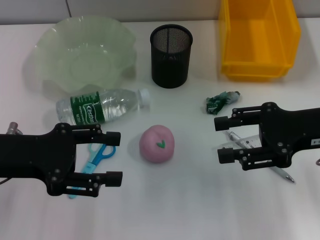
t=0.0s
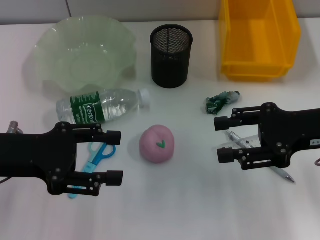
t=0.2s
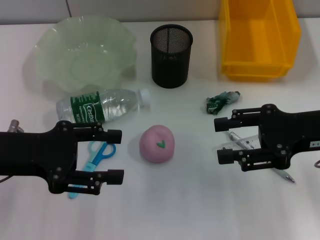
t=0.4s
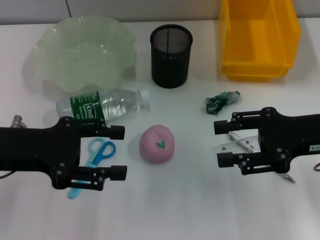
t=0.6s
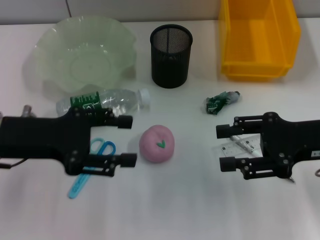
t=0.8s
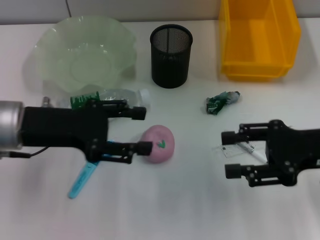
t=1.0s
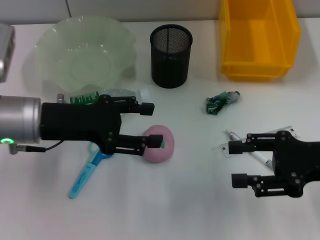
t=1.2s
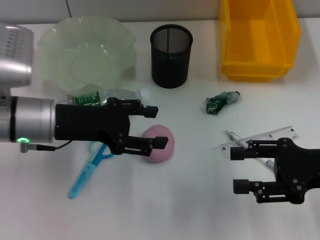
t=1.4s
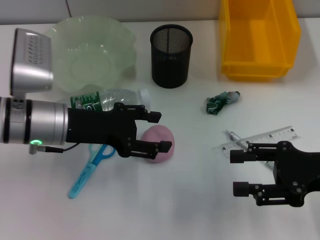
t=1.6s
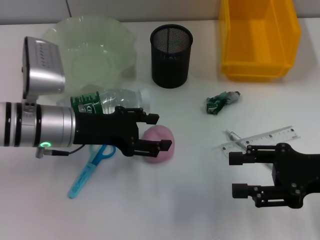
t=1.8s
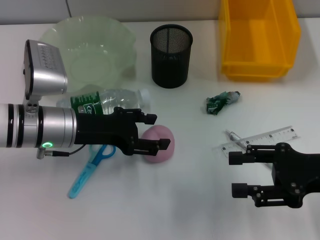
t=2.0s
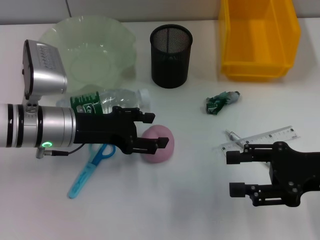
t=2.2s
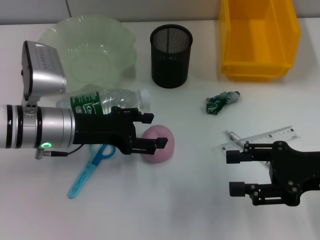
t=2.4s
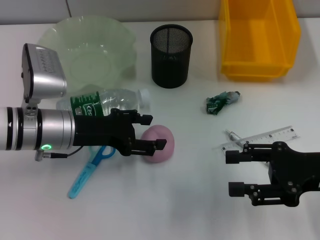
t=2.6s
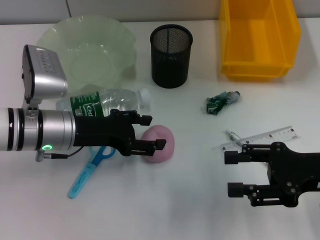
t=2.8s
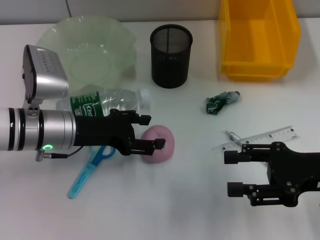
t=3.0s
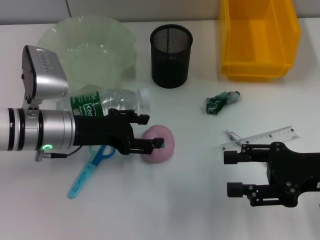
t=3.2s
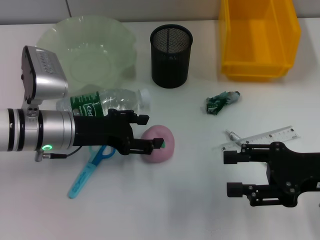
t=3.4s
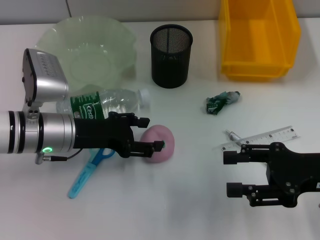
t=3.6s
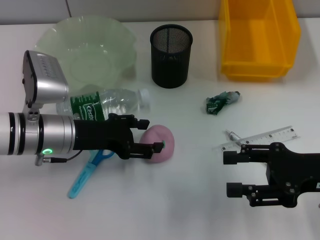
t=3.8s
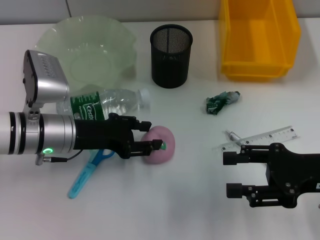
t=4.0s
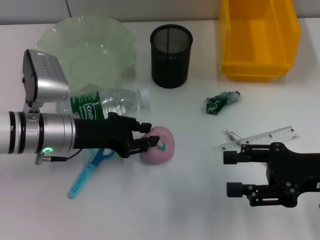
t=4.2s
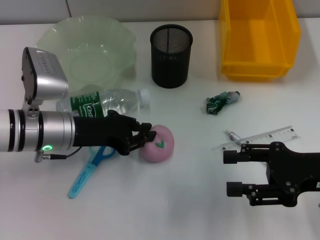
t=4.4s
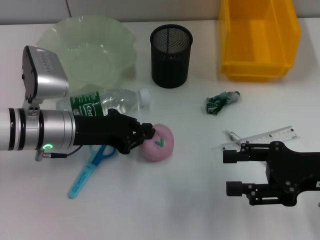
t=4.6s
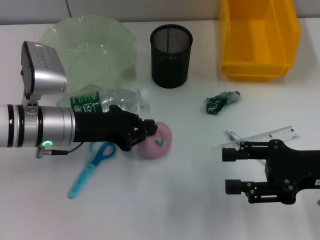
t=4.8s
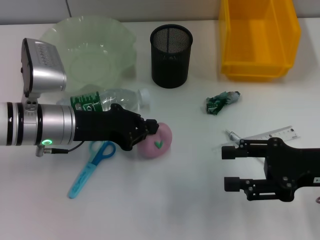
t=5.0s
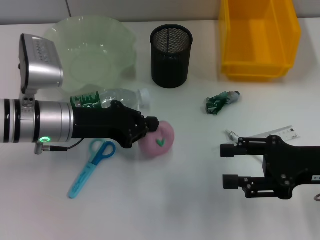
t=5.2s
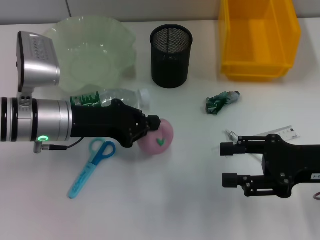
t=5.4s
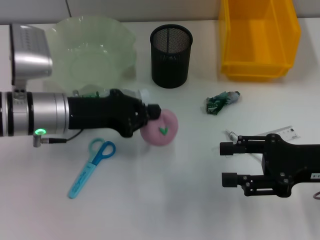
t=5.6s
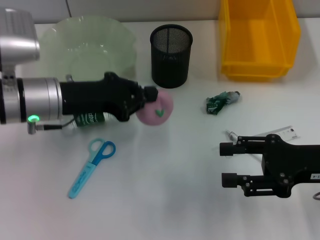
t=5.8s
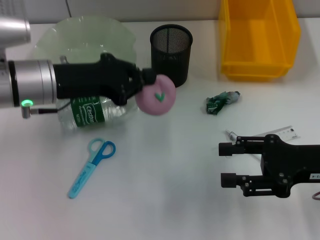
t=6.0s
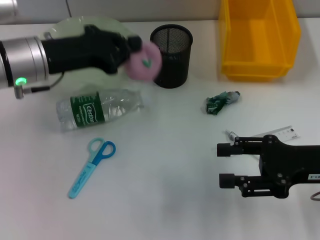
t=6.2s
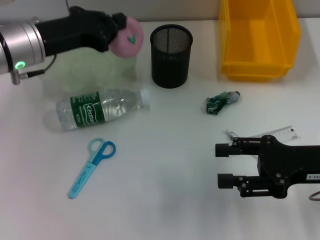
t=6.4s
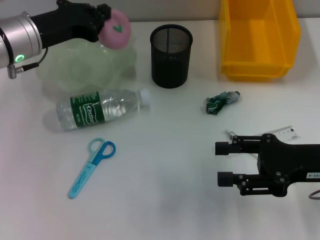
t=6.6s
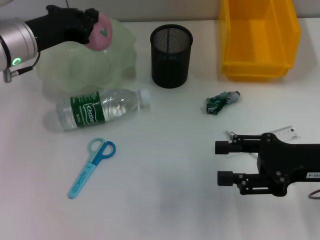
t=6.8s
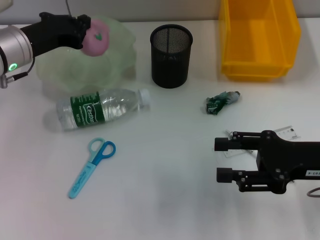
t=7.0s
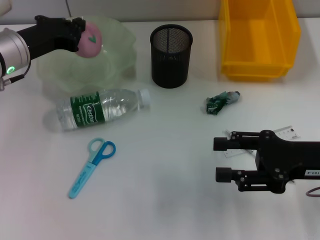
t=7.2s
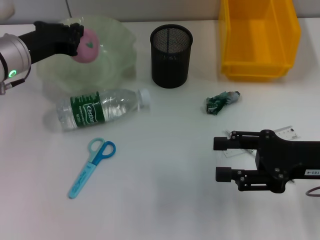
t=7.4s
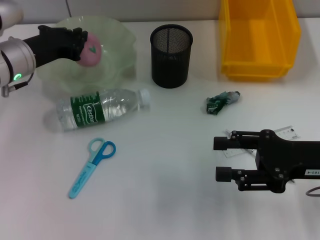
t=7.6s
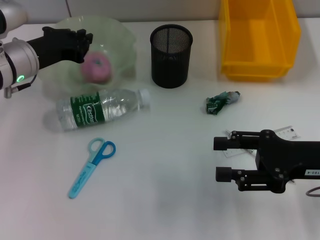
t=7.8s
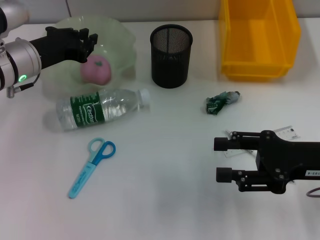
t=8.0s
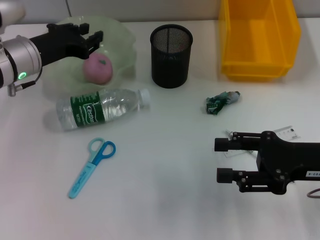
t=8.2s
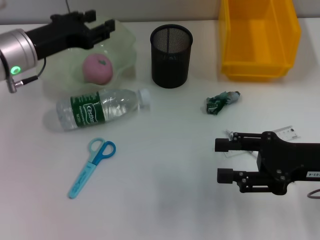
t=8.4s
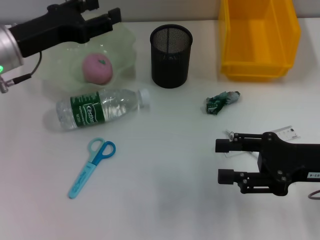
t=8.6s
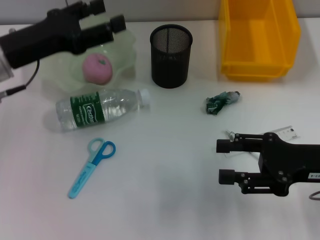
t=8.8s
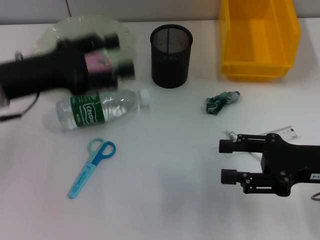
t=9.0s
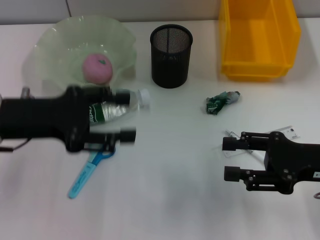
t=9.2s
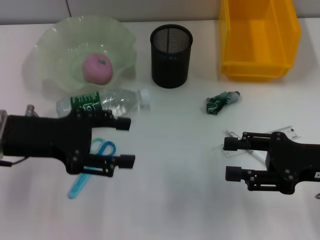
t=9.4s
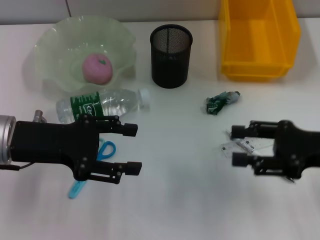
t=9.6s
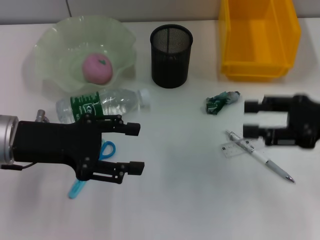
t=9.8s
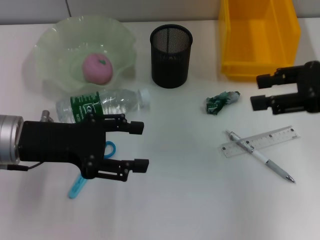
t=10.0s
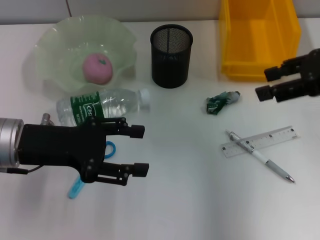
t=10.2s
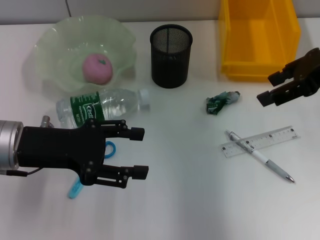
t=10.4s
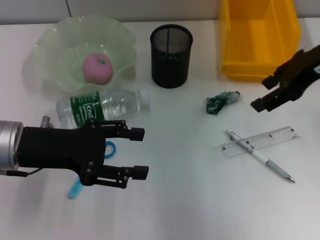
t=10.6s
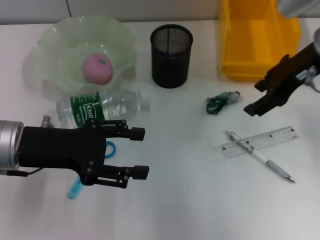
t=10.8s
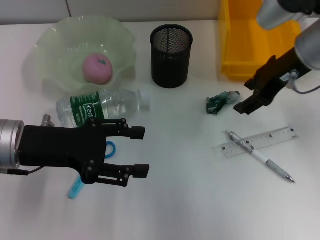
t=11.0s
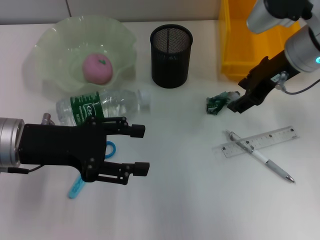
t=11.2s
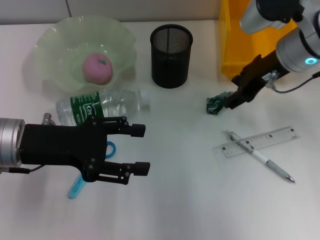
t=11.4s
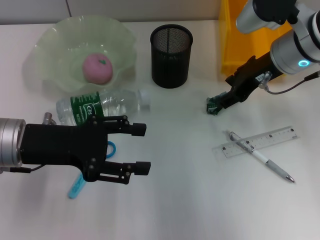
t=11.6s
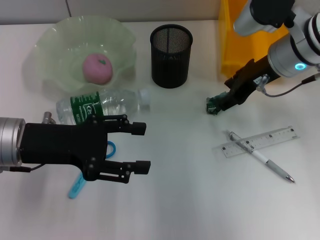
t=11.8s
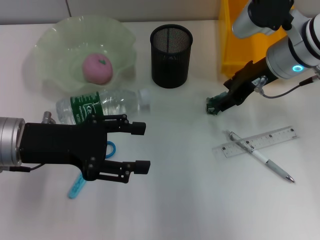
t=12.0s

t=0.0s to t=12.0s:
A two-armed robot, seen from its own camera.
Step, t=0.0s to t=4.4s: Grab the peach with the left hand.
Step, t=4.6s to t=8.0s: Place the peach into the fruit bowl with the left hand.
t=0.0s to t=1.6s: The right gripper changes place by approximately 5 cm. Meanwhile the left gripper shifts approximately 10 cm to the right and forward.
t=1.6s to t=3.0s: There are only small adjustments of the grippers.
t=3.0s to t=4.4s: The left gripper closes up.
t=4.4s to t=6.0s: The left gripper is displaced upward by roughly 5 cm, and closes.
t=6.0s to t=7.6s: The left gripper heads forward, covering some 5 cm.
t=7.6s to t=9.0s: The left gripper shifts some 10 cm backward, and opens its fingers.
t=9.0s to t=10.4s: The left gripper ends up roughly 5 cm from where it was, while the right gripper heads upward and forward, covering roughly 20 cm.
t=10.4s to t=12.0s: The right gripper shifts about 10 cm downward and to the left.

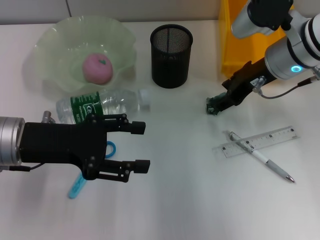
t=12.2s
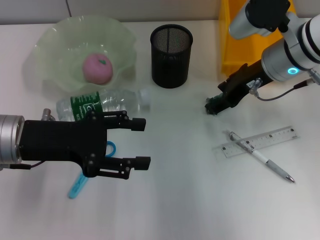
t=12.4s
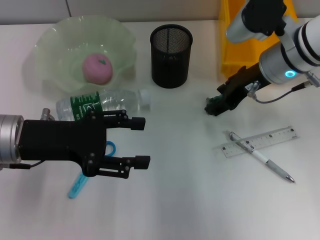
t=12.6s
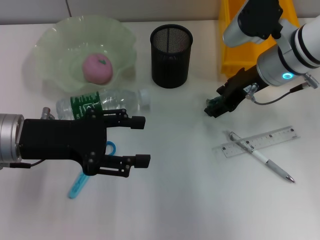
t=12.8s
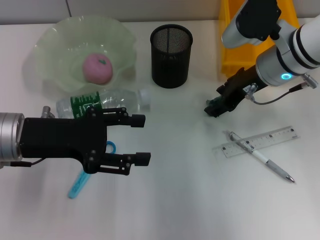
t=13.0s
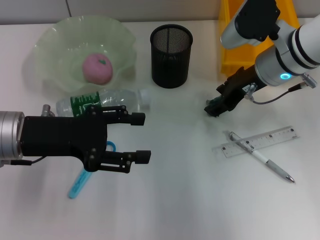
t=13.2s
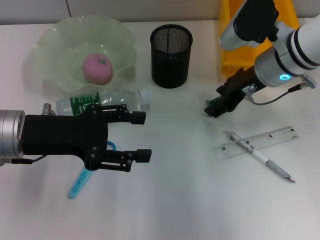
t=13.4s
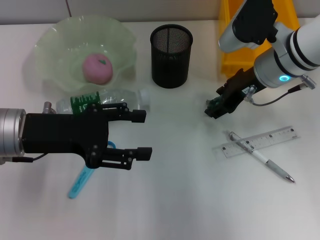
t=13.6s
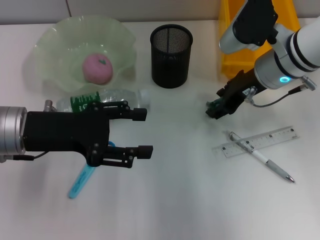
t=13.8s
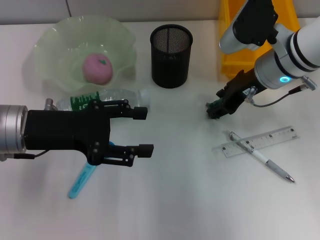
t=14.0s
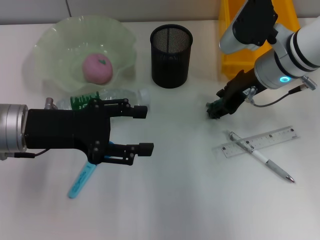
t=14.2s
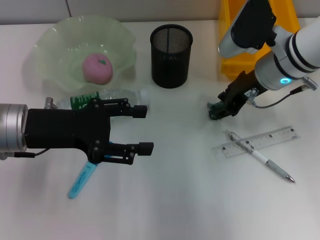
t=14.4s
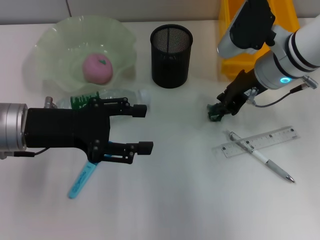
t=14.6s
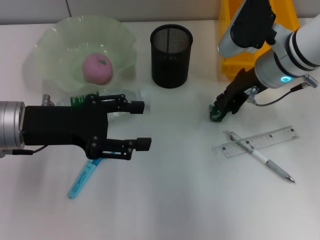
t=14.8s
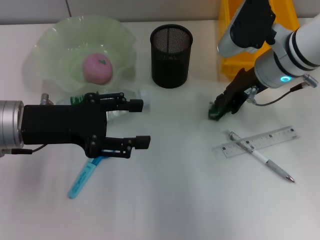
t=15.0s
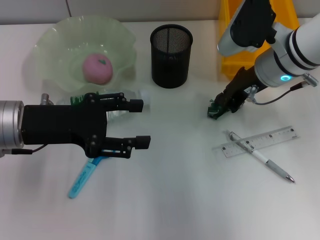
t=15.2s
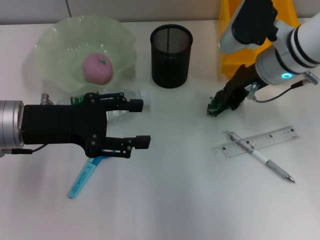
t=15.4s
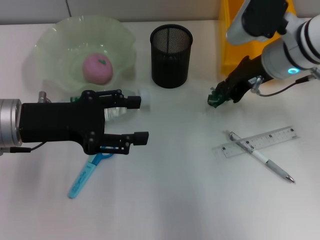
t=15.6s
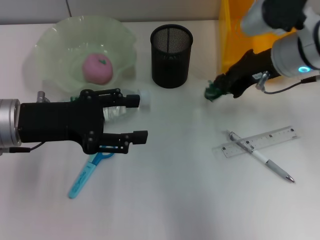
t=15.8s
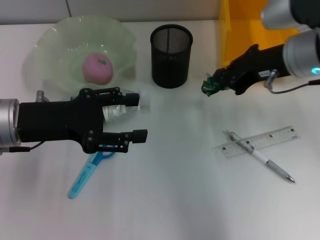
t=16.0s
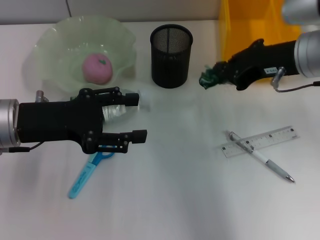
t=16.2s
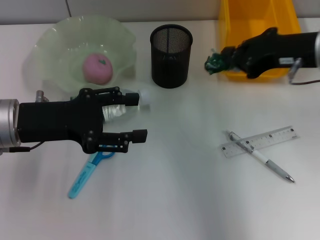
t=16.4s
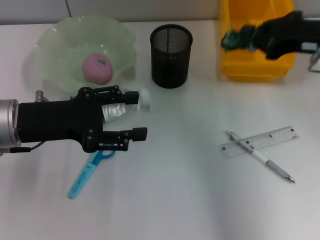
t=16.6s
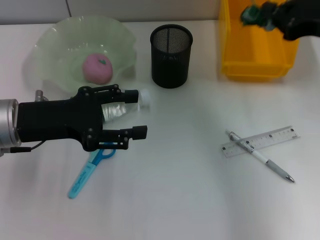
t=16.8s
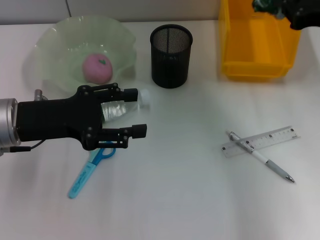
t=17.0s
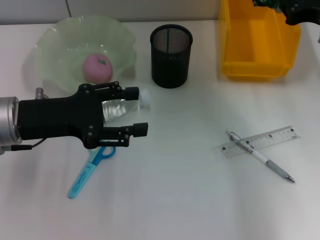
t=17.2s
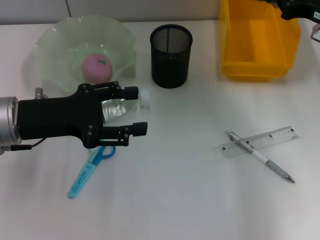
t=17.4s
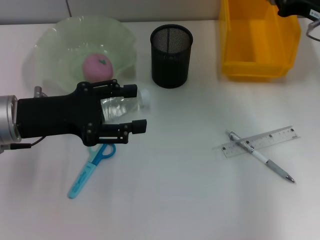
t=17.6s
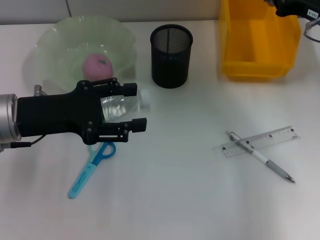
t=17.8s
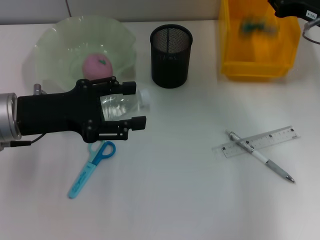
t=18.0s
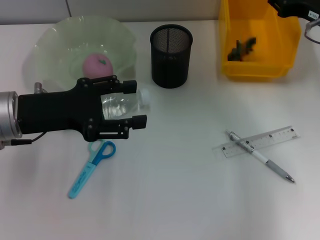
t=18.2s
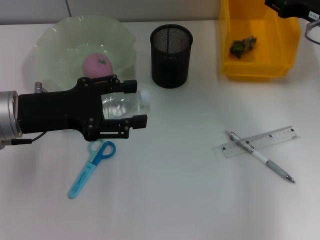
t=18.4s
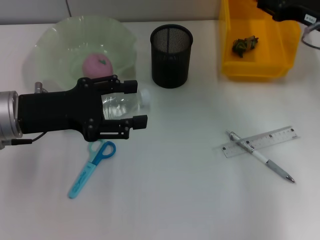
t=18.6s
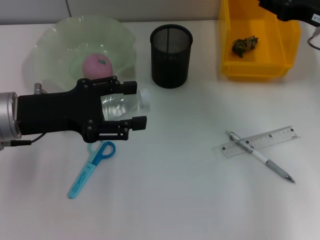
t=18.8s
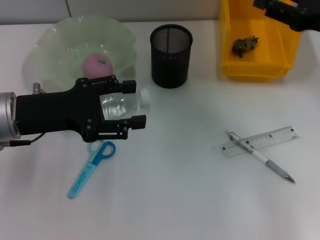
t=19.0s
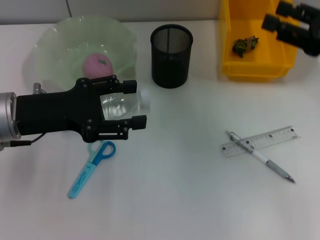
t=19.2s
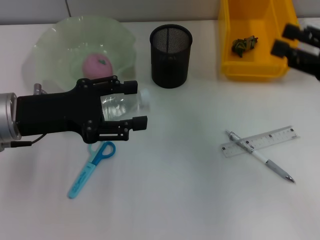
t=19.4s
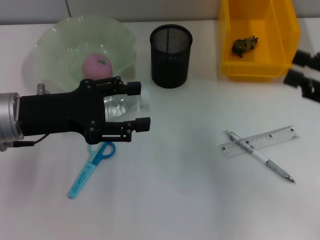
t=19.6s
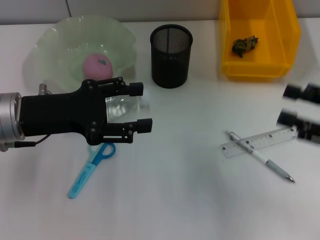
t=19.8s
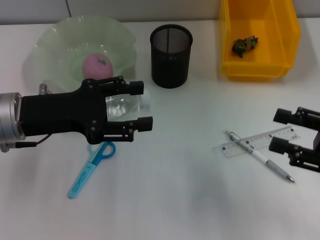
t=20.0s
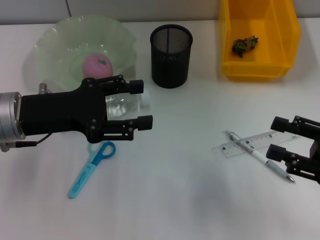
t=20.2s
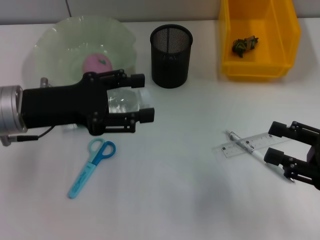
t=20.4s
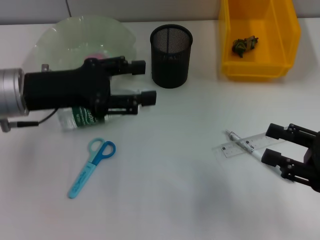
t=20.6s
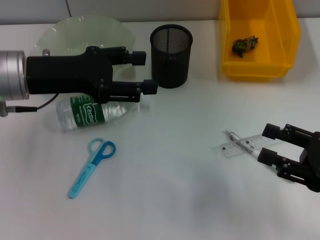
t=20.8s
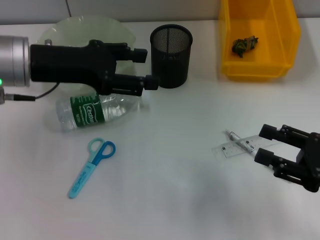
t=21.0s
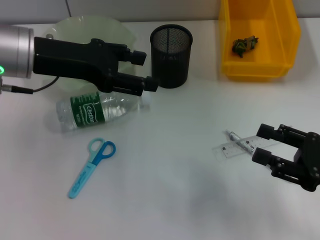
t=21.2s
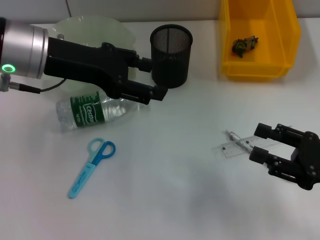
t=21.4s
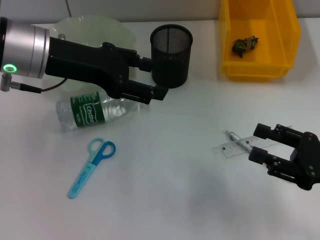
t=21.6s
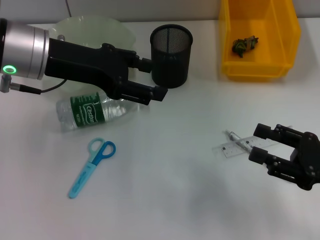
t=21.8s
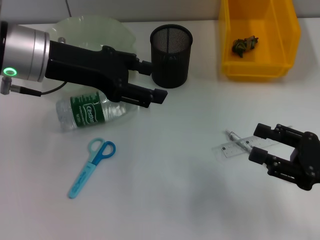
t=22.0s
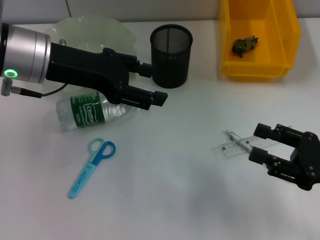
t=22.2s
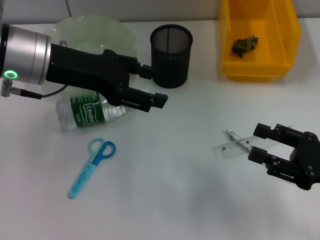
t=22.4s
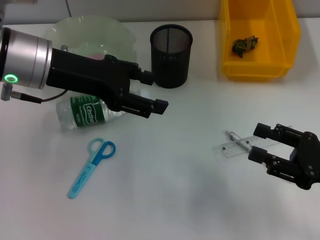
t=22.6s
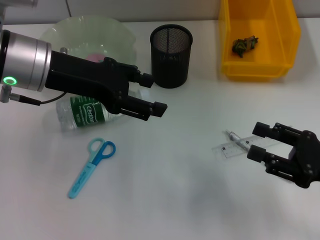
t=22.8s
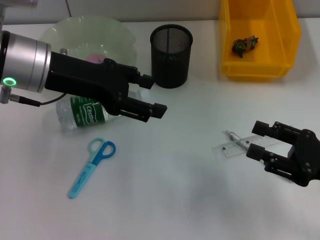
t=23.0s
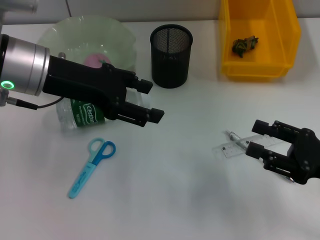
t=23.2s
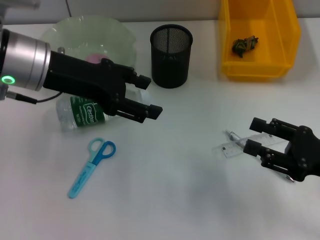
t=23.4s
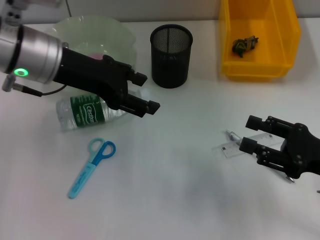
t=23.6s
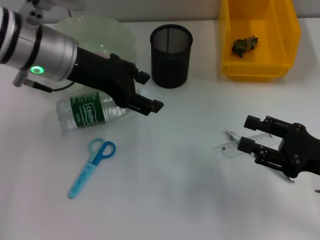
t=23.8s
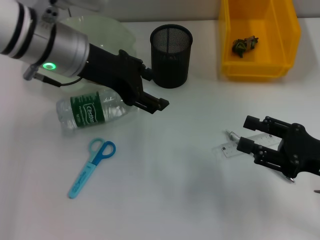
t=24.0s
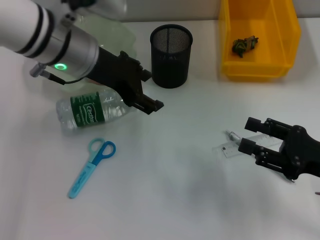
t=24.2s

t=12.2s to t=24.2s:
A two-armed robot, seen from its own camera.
Step, t=12.2s to t=14.6s: Grab the plastic with the right hand.
Step, t=14.8s to t=18.2s: Place the plastic into the trash can with the right hand.
t=12.2s to t=13.8s: There are only small adjustments of the grippers.
t=13.8s to t=15.2s: The right gripper closes its fingers.
t=15.2s to t=16.6s: The right gripper is displaced to the right, upward and backward by about 10 cm.
t=16.6s to t=18.2s: The right gripper goes roughly 10 cm forward and downward.
t=18.2s to t=19.8s: The right gripper moves backward, roughly 15 cm, and opens up.
t=19.8s to t=21.2s: The right gripper heads downward, covering about 5 cm; the left gripper travels upward and forward by roughly 10 cm.
t=21.2s to t=22.6s: The grippers make only small movements.
t=22.6s to t=24.2s: The left gripper is displaced to the right by roughly 5 cm.
